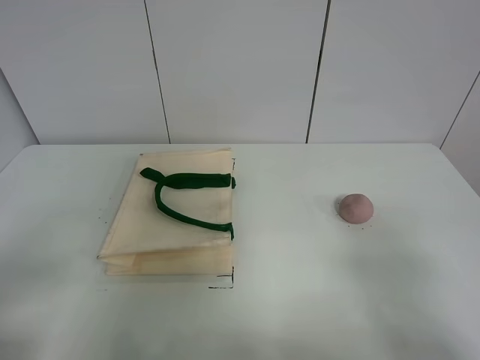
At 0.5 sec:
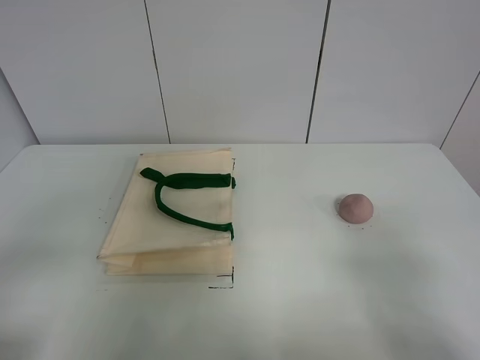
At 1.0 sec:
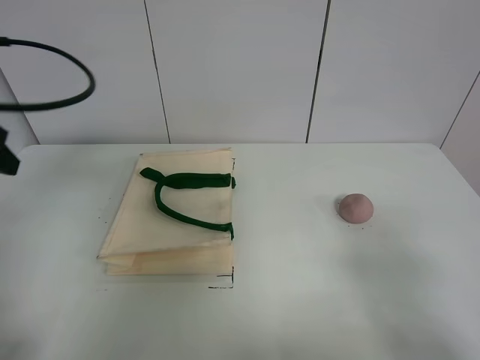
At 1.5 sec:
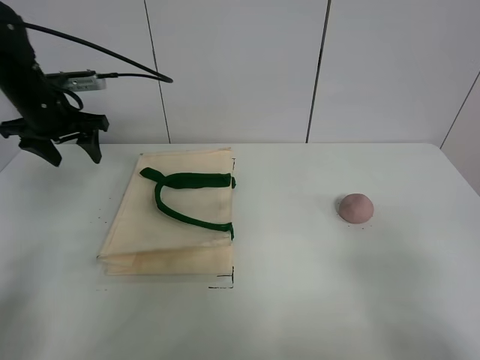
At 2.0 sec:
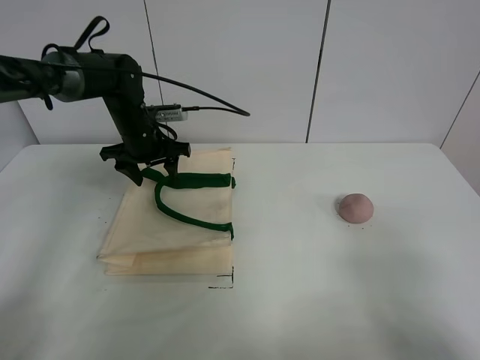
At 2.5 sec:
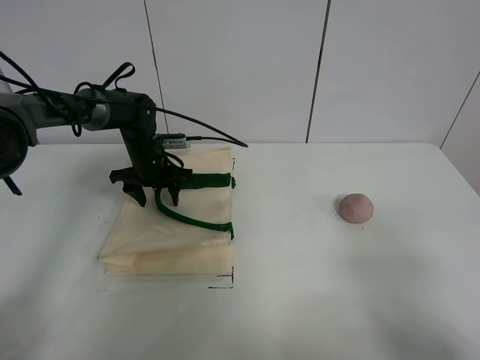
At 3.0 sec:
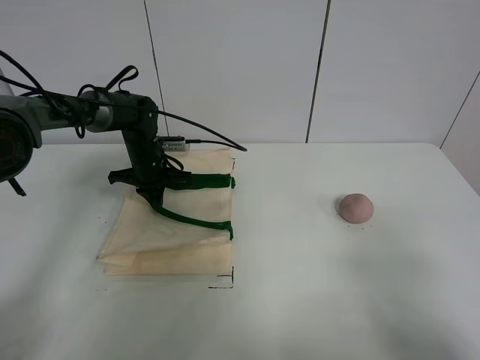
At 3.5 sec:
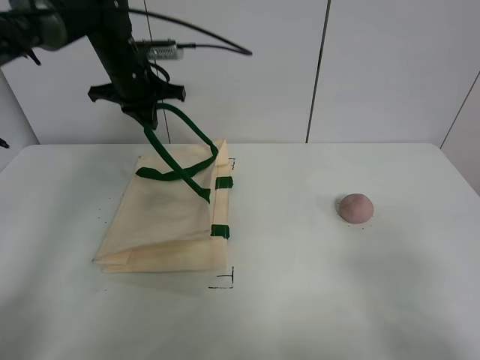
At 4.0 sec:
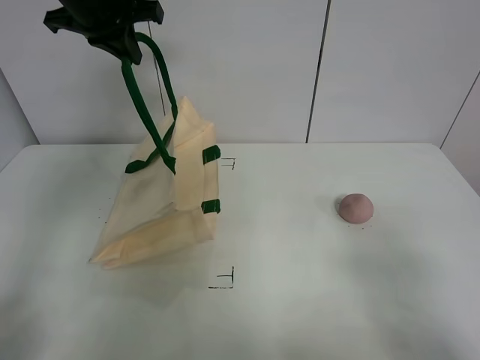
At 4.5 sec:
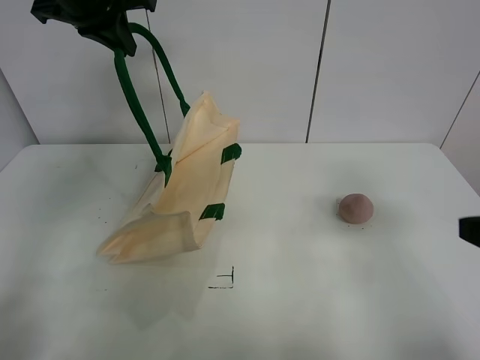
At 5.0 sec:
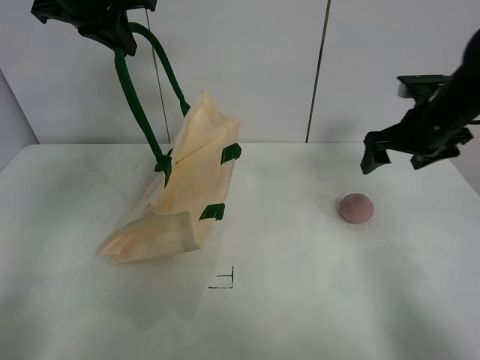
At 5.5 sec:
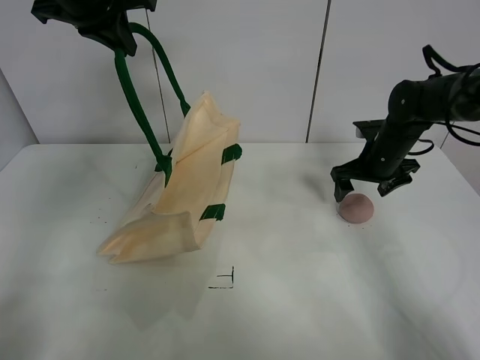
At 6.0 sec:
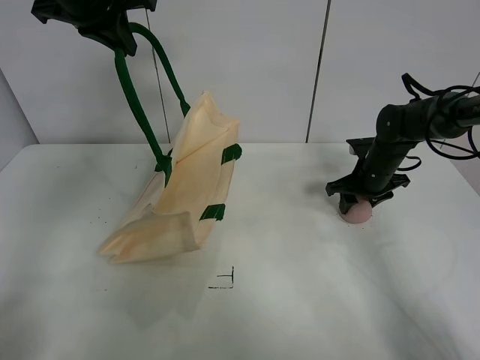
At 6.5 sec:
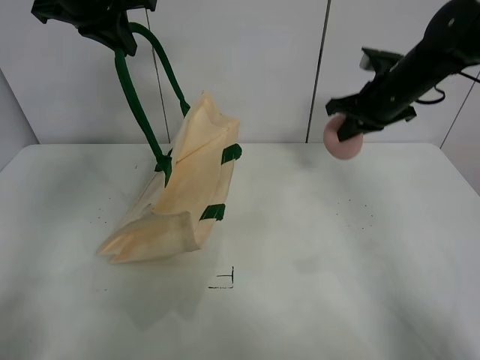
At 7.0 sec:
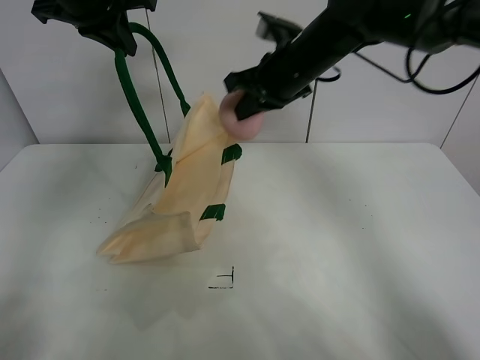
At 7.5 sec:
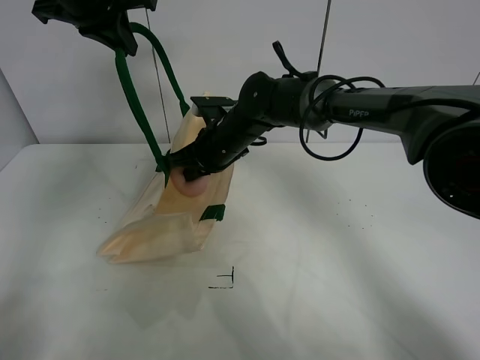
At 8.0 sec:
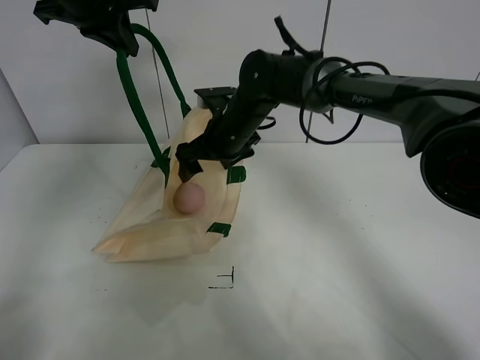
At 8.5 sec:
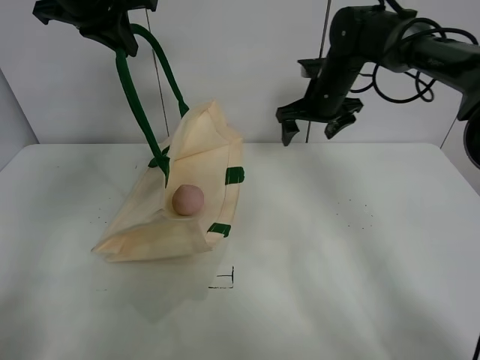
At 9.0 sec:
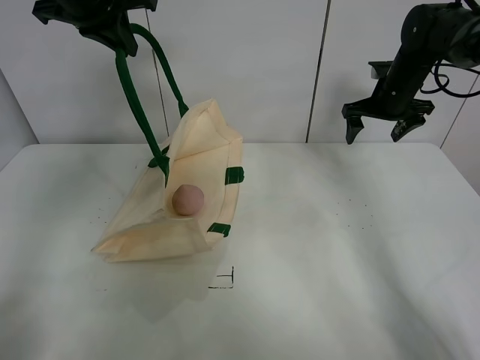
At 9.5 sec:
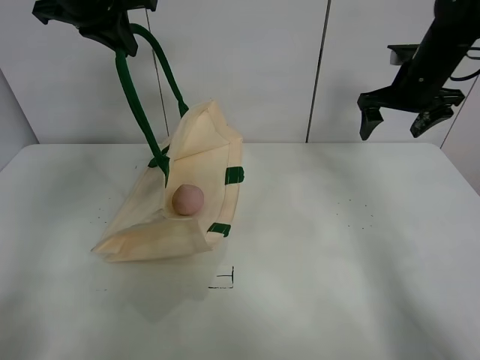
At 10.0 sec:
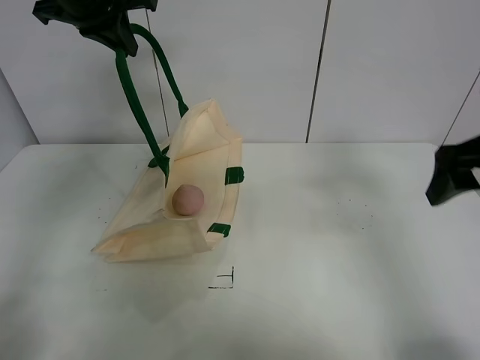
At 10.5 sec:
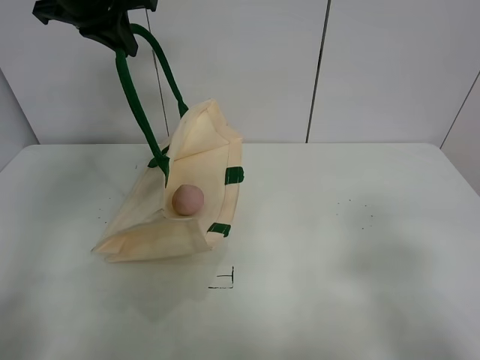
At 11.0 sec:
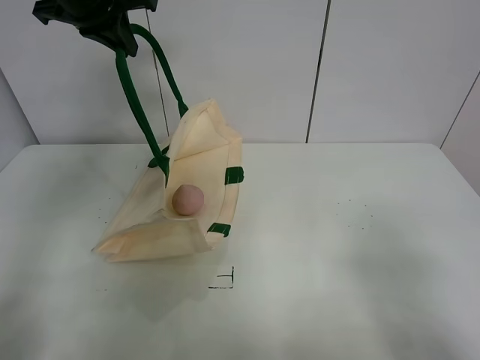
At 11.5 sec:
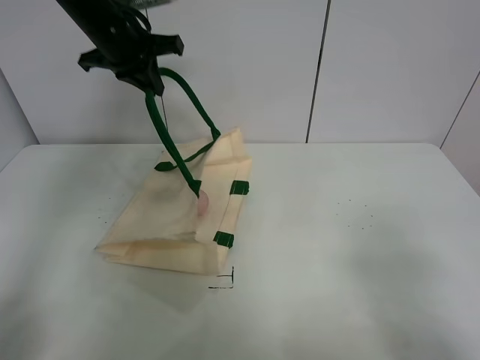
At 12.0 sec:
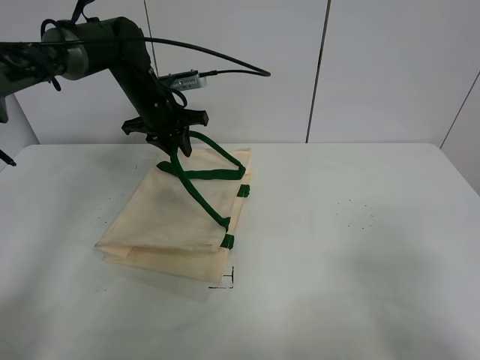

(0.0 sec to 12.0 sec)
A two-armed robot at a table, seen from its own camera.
Task of the whole recording: open the white linen bag and put the peach in the bag.
Step, 0.0 sec - 4.0 sec: Lift the handbag with left gripper.
Step, 4.5 sec - 6.0 sec: Grasp the peach with right gripper.
Step, 6.5 sec - 8.0 sec: Place the peach in the handbag with right gripper.
0.0 sec - 2.0 sec: The left gripper shifts about 40 cm forward.
2.0 sec - 4.0 sec: The left gripper moves upward, approximately 25 cm, and closes up.
4.0 sec - 6.0 sec: The right gripper is displaced forward by roughly 40 cm, and closes.
6.0 sec - 8.0 sec: The right gripper is displaced to the left and upward by some 25 cm, and opens its fingers.
8.0 sec - 10.0 sec: The right gripper is displaced to the right and backward by approximately 35 cm.
10.0 sec - 12.0 sec: The left gripper moves downward and forward, about 20 cm, and opens its fingers. The right gripper is displaced backward by roughly 20 cm.

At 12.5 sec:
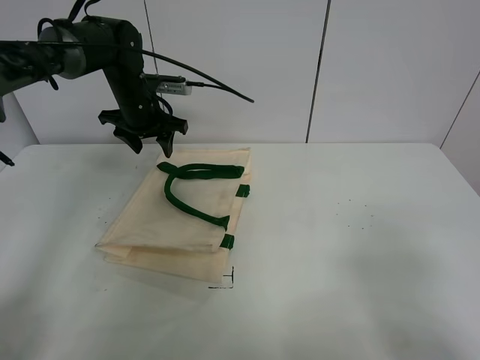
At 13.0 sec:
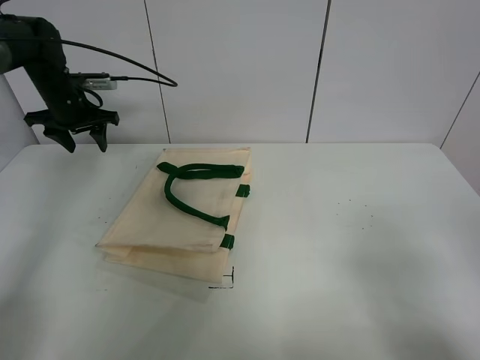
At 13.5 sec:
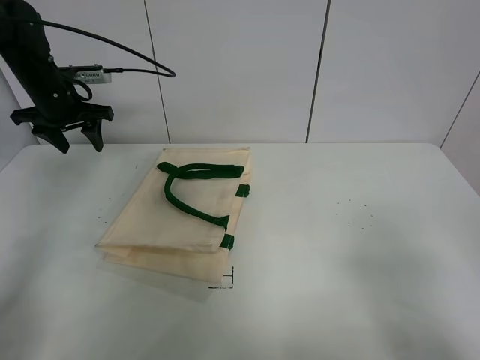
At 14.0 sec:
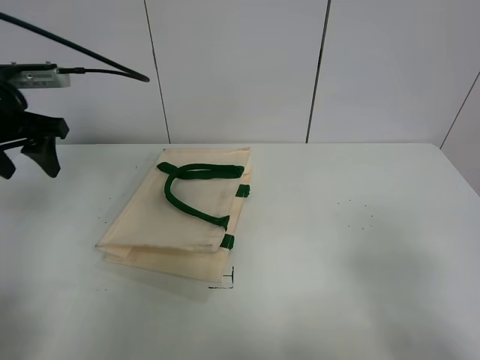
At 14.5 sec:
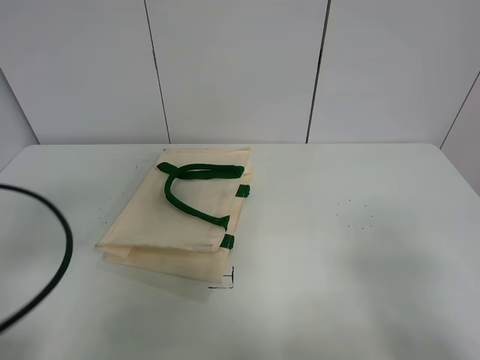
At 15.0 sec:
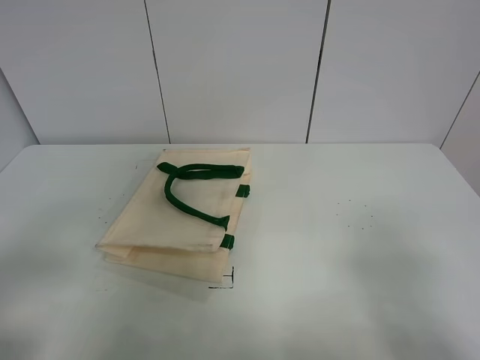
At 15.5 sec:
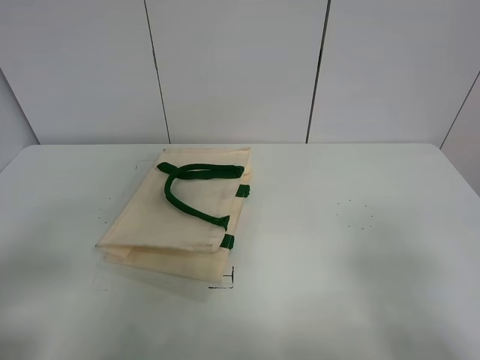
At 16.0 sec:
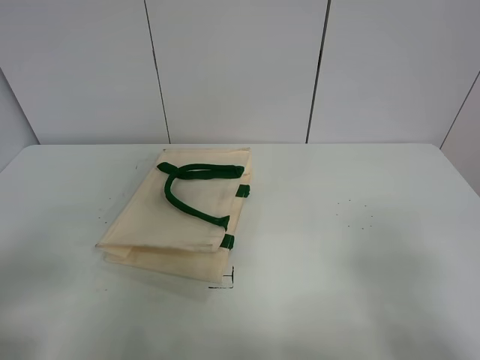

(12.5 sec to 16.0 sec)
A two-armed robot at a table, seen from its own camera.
Task of the whole recording: open the white linen bag and put the peach in the bag.
12.5 sec - 14.5 sec: The left gripper heads backward, covering roughly 40 cm.
14.5 sec - 16.0 sec: The left gripper goes approximately 10 cm backward.
